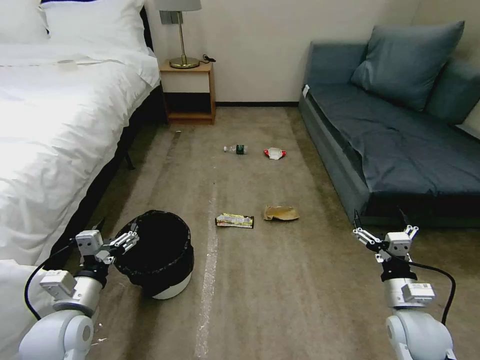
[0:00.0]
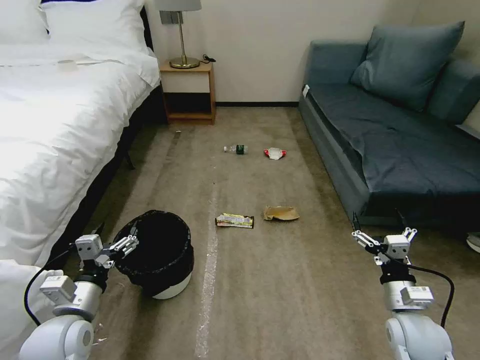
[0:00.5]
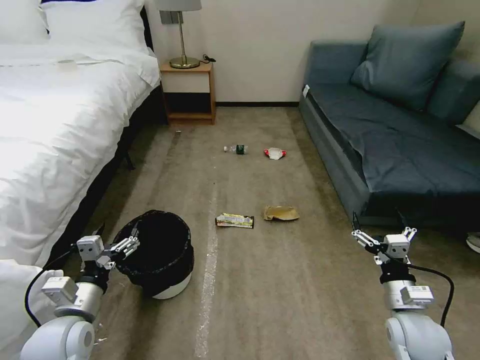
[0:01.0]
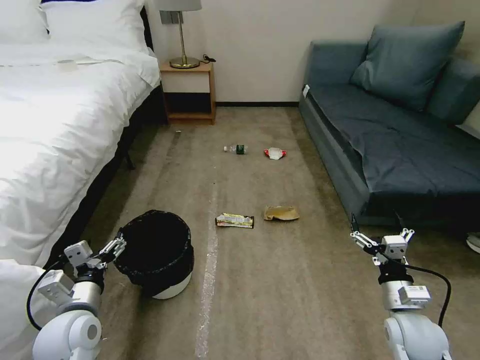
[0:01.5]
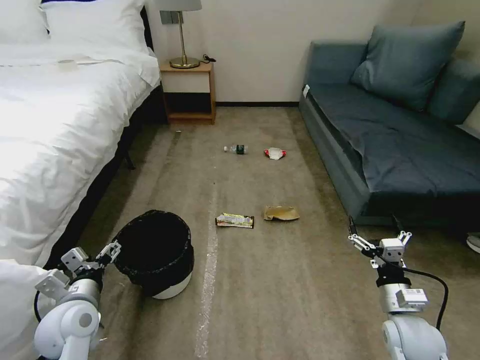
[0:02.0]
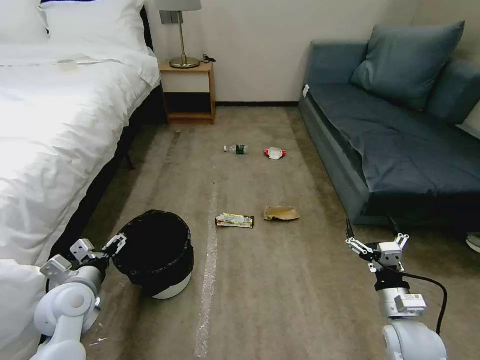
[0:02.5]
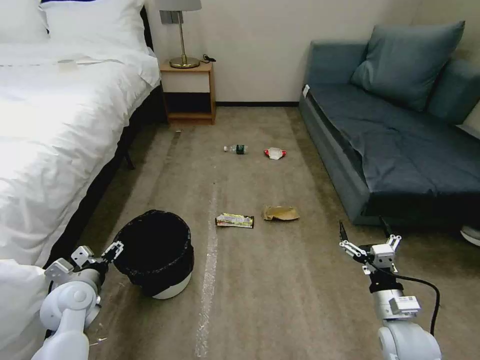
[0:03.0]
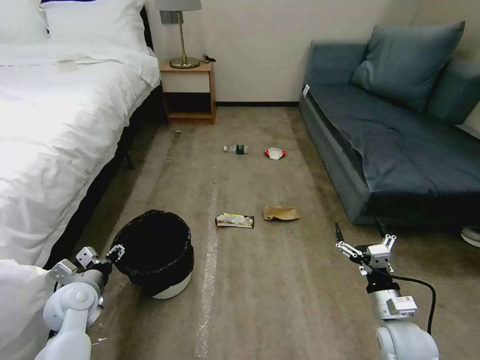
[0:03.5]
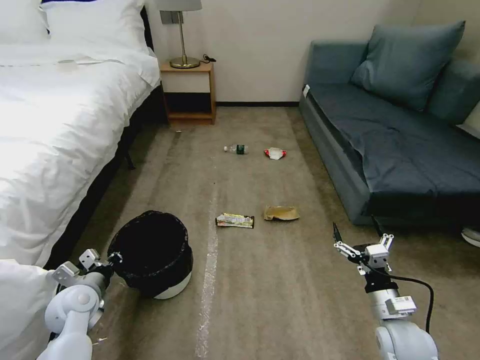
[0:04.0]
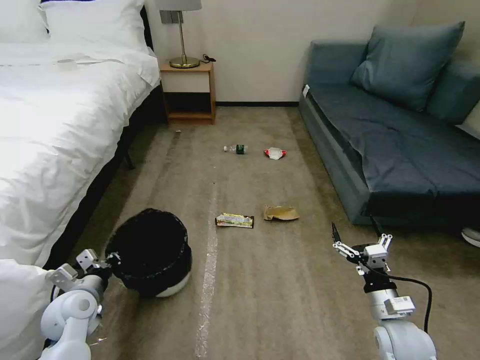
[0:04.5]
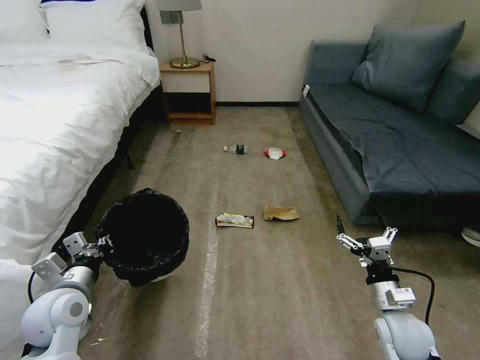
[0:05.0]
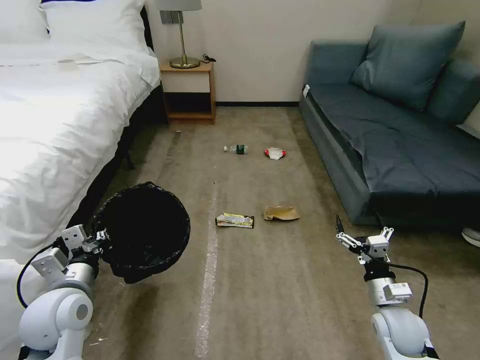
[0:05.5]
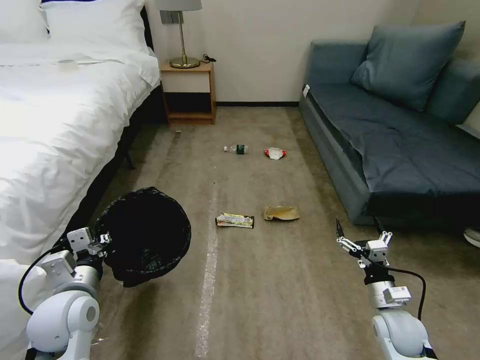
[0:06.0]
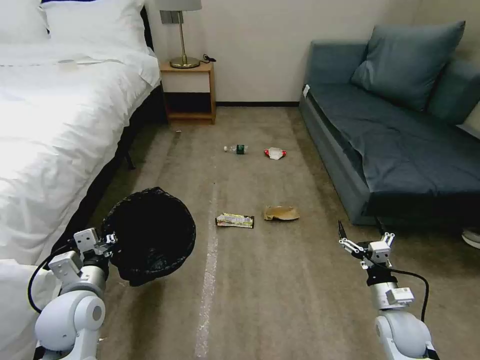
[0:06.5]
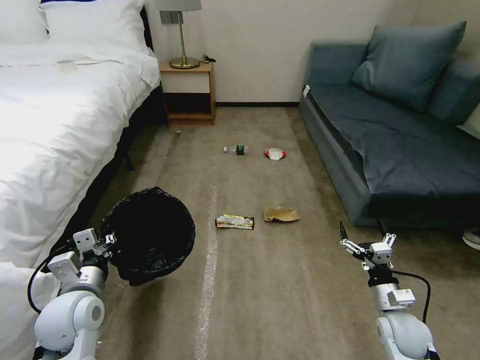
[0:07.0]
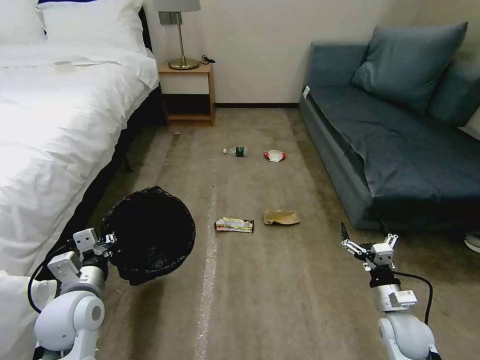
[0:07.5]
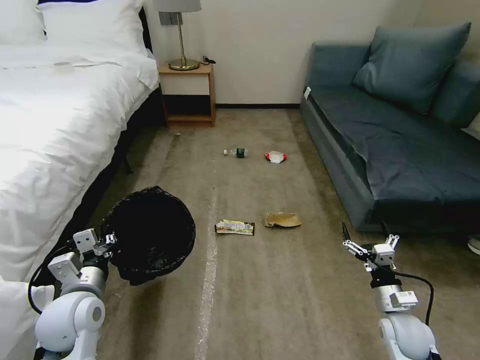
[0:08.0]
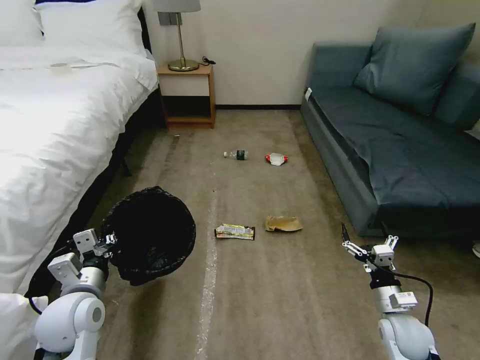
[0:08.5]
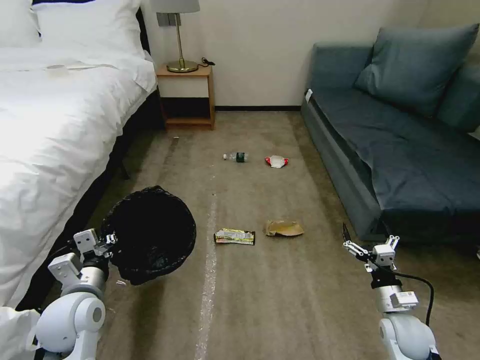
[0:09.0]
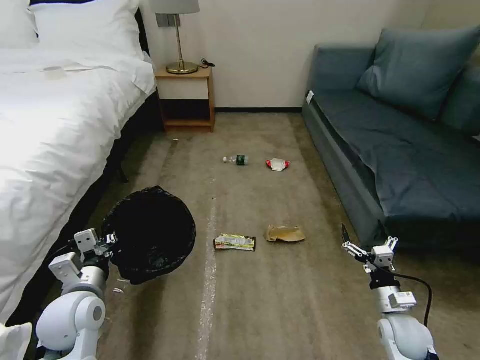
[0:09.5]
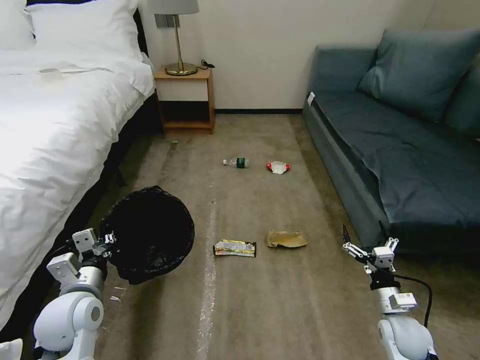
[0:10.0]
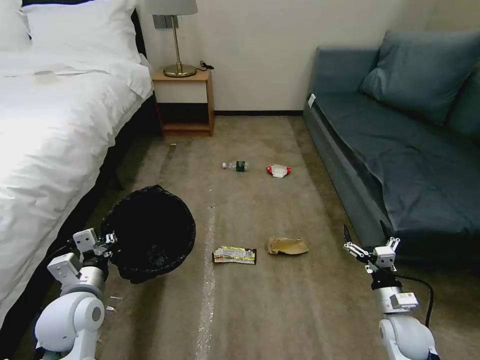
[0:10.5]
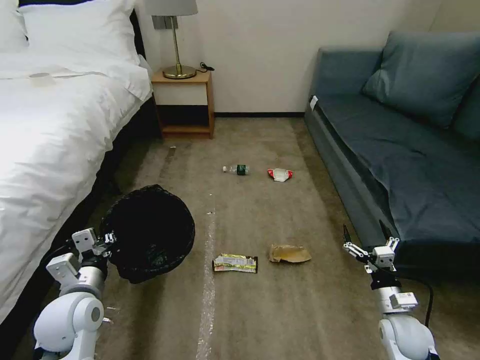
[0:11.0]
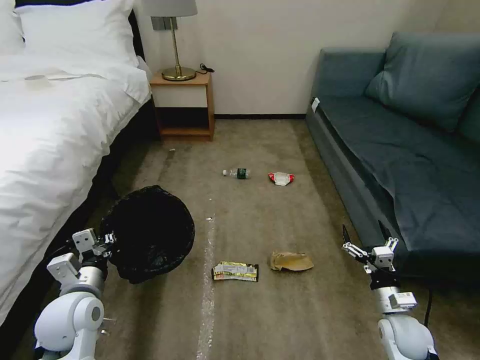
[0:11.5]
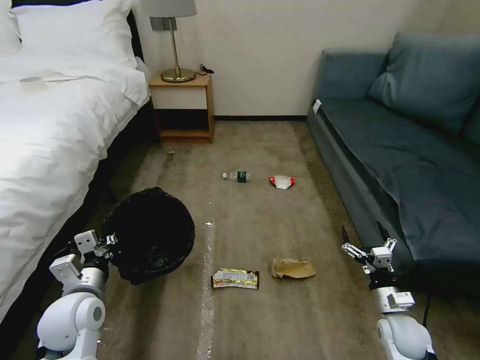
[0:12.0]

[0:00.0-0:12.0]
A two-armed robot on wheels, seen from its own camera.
Task of the whole recording: Pick up the trash bin, then pick up the garbage on the floor and place it into the trash bin.
0:02.0 to 0:04.0: The left gripper goes roughly 5 cm forward, and closes up.
0:04.0 to 0:06.0: The left gripper shifts roughly 10 cm upward and to the right, while the right gripper ends up about 5 cm from where it was.
0:06.0 to 0:08.0: The grippers make only small movements.
0:08.0 to 0:10.0: Both grippers stay put.
0:10.0 to 0:12.0: Both grippers stay about where they are.

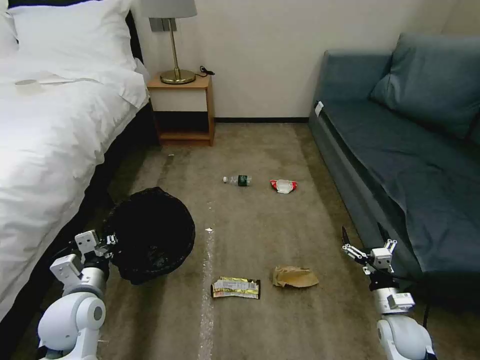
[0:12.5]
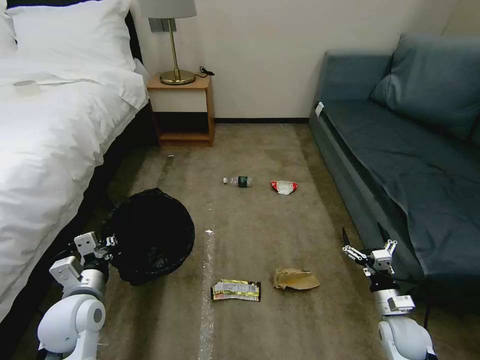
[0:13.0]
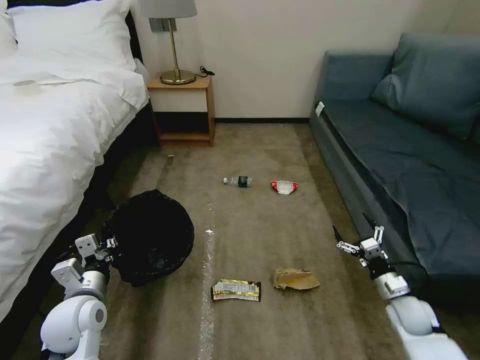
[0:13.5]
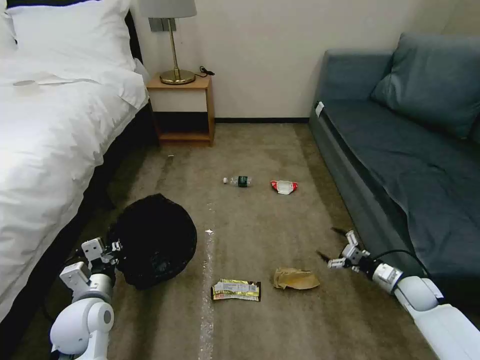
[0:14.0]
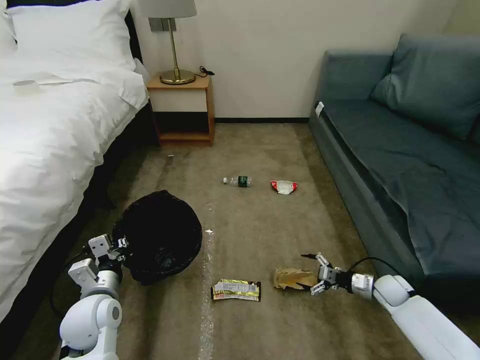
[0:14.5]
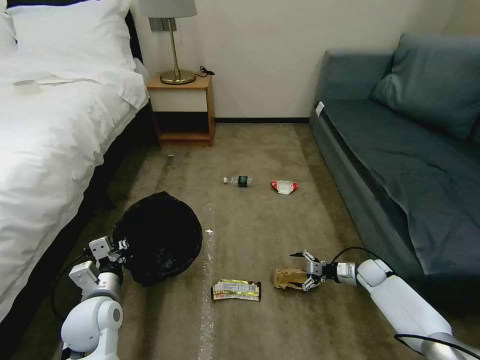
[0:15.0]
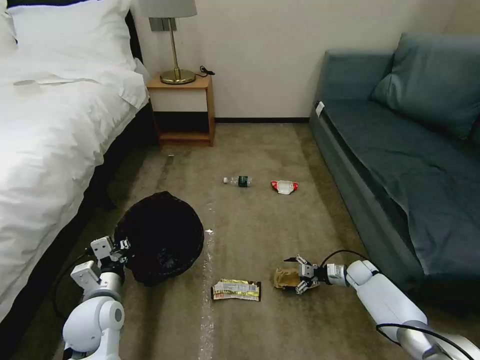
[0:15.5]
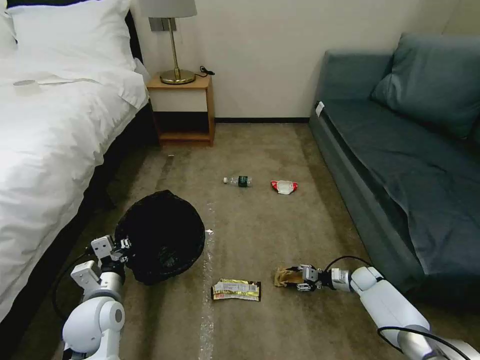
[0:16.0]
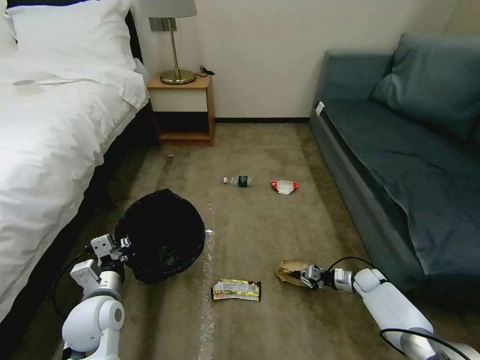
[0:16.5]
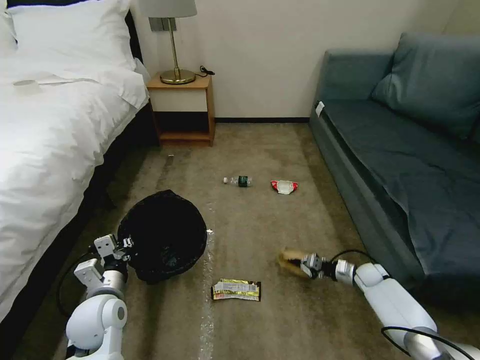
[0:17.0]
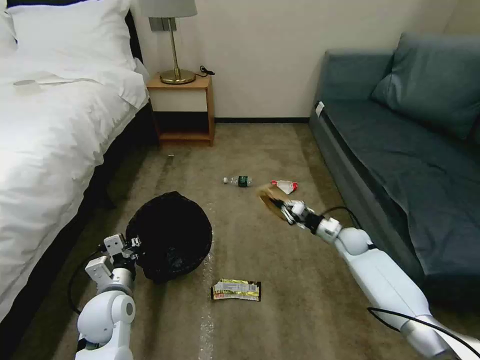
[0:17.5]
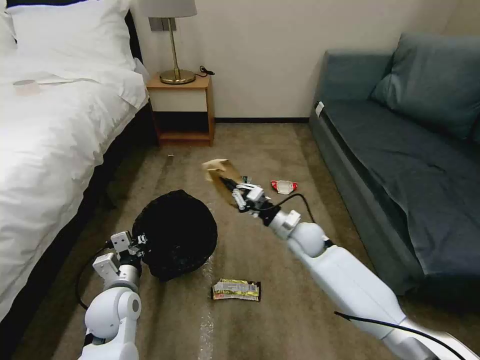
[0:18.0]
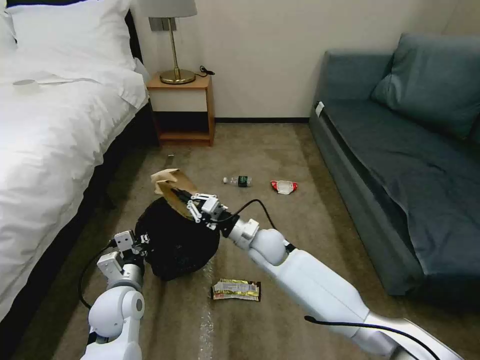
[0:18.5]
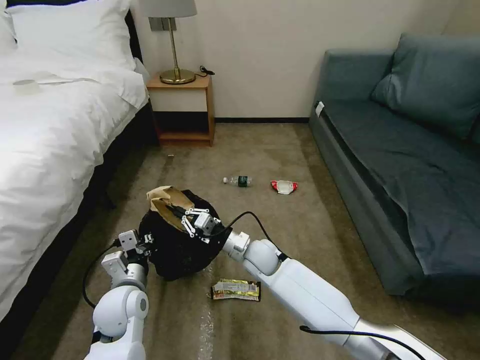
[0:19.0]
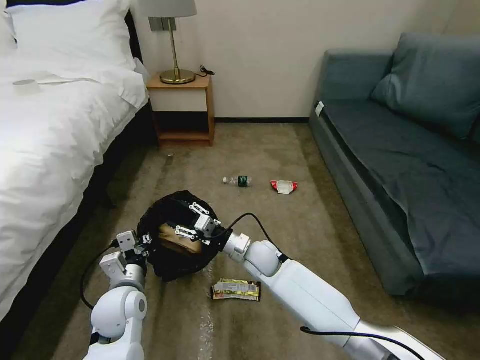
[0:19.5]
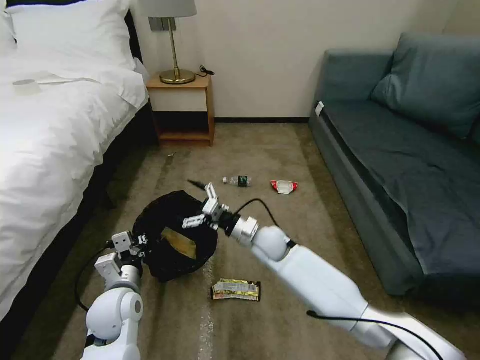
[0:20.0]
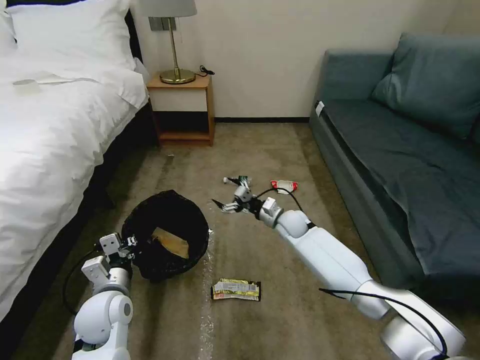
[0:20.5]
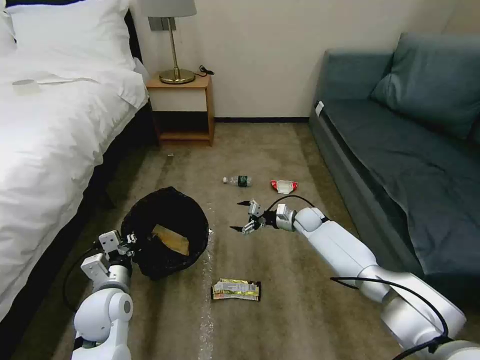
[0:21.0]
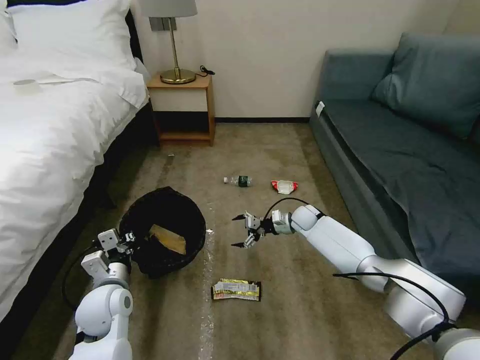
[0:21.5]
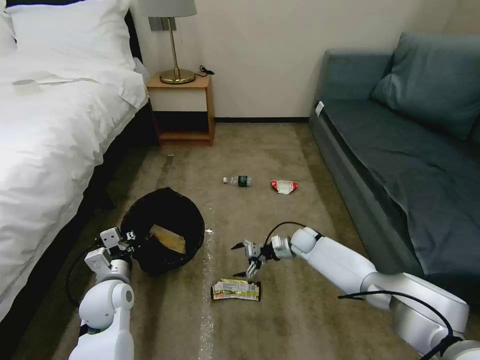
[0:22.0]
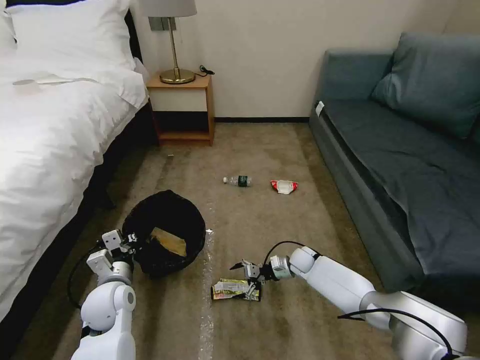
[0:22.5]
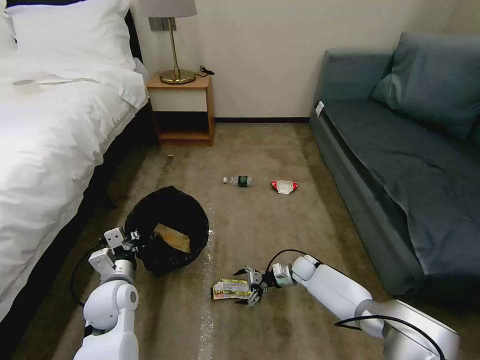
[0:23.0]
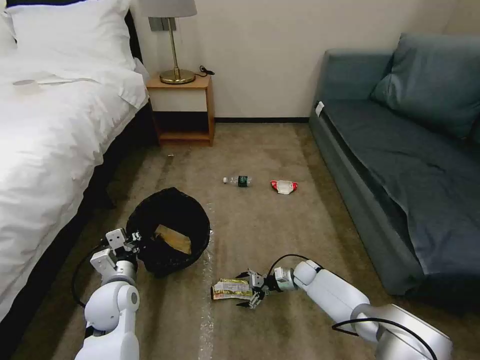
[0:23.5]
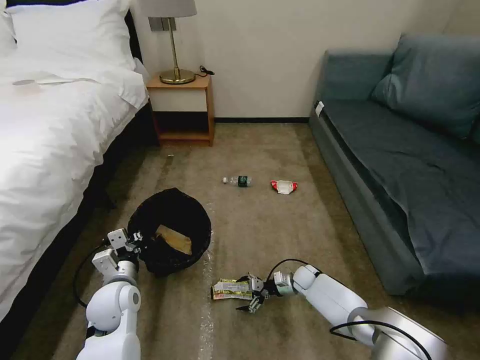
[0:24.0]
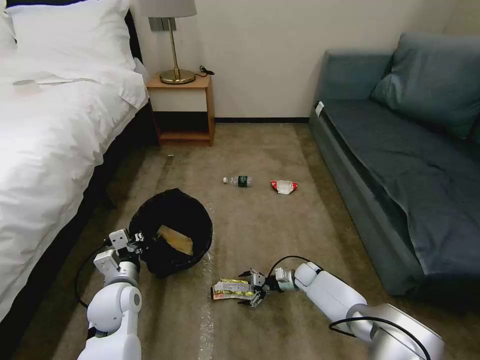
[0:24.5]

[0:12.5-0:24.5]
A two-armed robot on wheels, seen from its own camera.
Task of the whole recording: Pick up the trash bin, then pick up the garbage on the floor and place it into the trash bin.
0:12.5 to 0:14.5: The right gripper is displaced forward and to the right by about 15 cm.
0:14.5 to 0:16.5: The right gripper shifts roughly 5 cm downward, and closes.
0:16.5 to 0:18.5: The right gripper travels to the left and upward by roughly 40 cm.
0:18.5 to 0:20.5: The right gripper travels forward and to the right by some 15 cm, and opens its fingers.
0:20.5 to 0:22.5: The right gripper heads downward and to the right, covering about 15 cm.
0:22.5 to 0:24.5: The right gripper is displaced downward by about 5 cm.

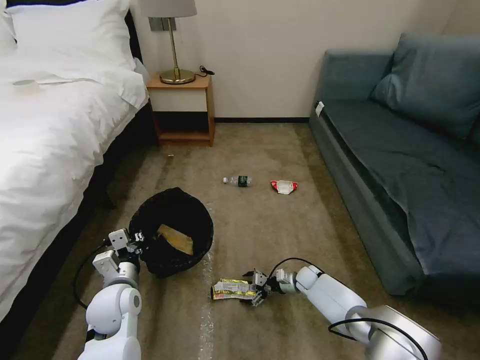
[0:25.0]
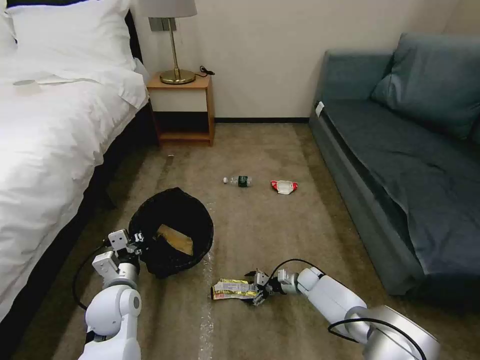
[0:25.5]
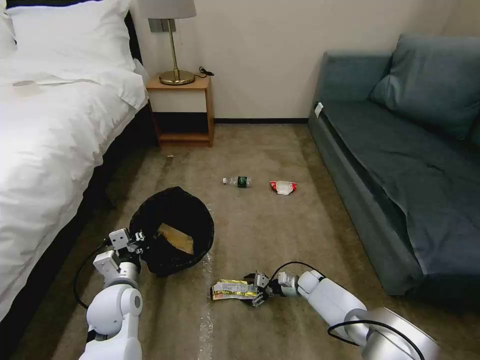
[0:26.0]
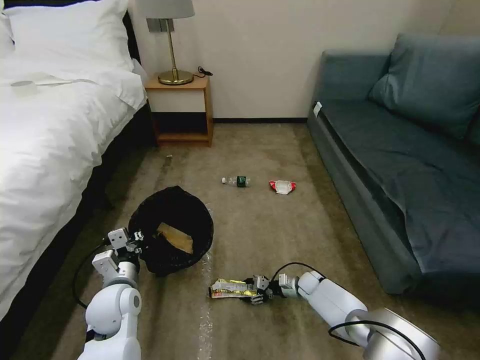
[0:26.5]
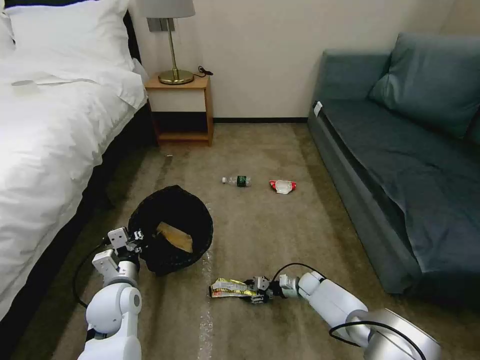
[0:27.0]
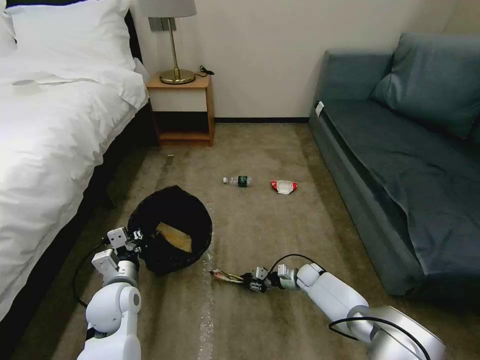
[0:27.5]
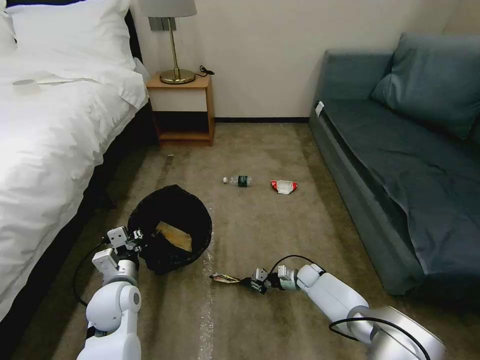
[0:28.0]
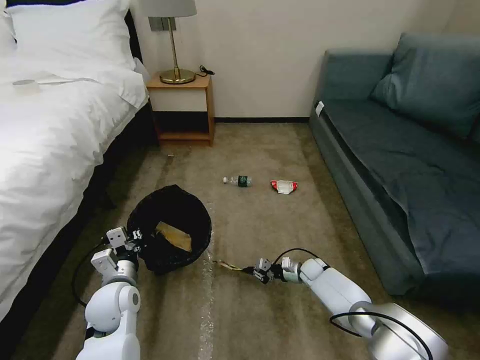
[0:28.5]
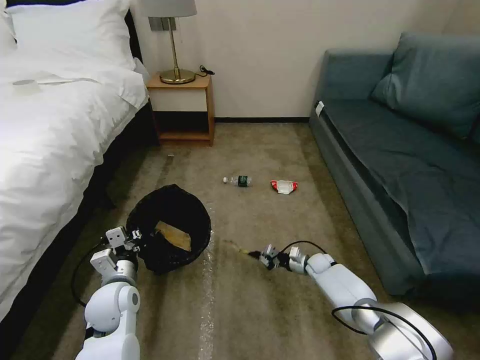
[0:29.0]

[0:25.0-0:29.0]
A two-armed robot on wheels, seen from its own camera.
Task of the whole recording: Pick up the trash bin, then pick up the garbage on the floor and place it into the trash bin.
0:25.0 to 0:27.0: The right gripper closes up.
0:27.0 to 0:29.0: The right gripper ends up approximately 5 cm from where it was, and closes up.
